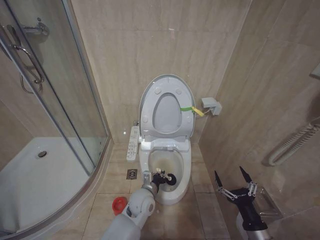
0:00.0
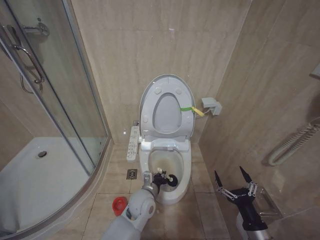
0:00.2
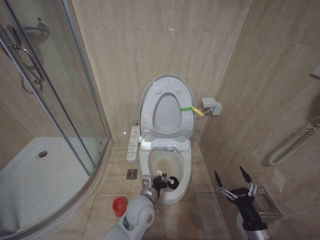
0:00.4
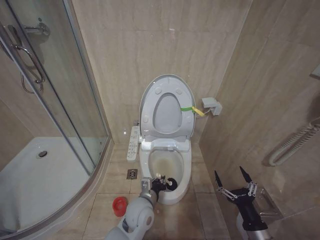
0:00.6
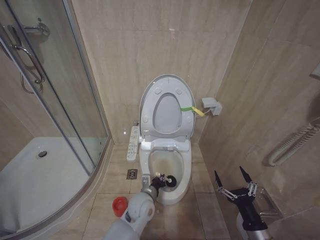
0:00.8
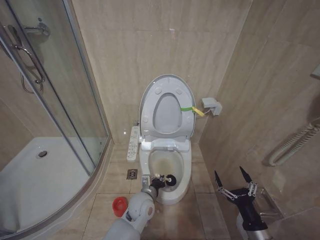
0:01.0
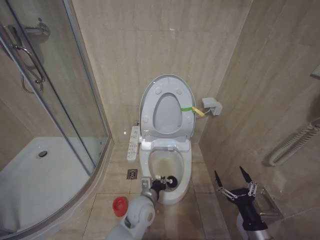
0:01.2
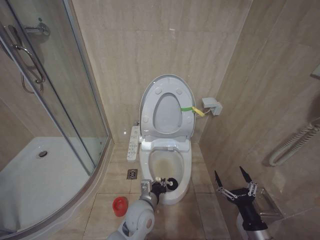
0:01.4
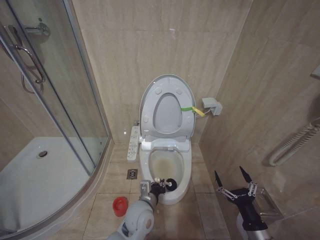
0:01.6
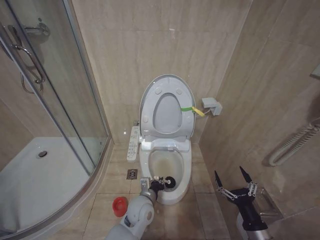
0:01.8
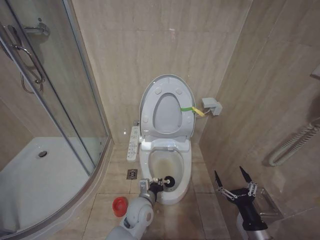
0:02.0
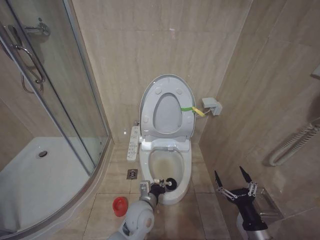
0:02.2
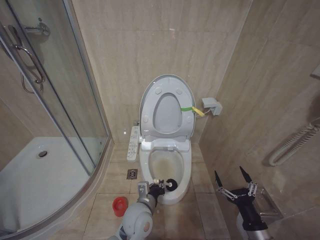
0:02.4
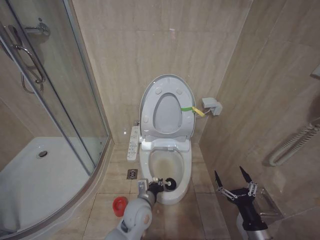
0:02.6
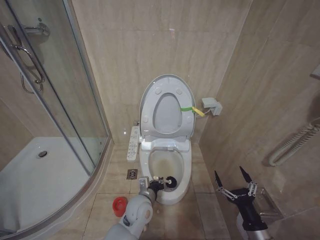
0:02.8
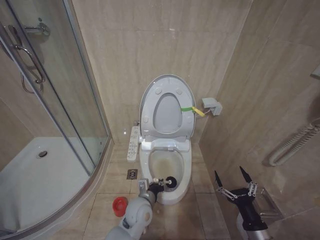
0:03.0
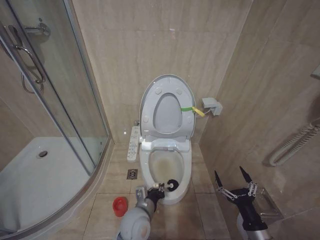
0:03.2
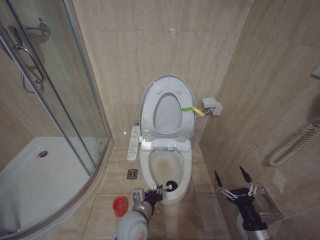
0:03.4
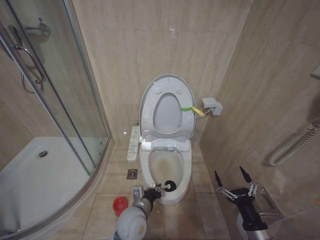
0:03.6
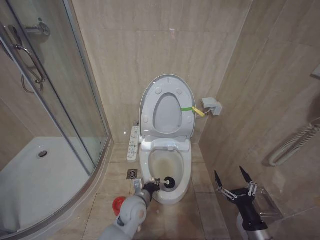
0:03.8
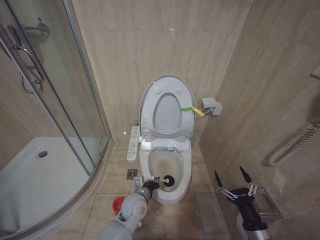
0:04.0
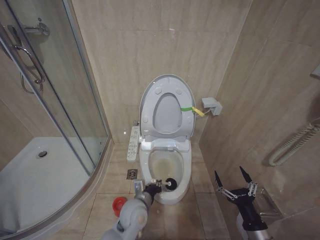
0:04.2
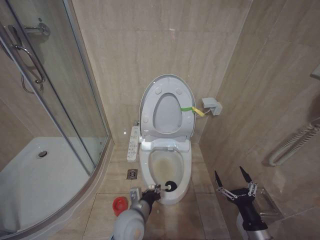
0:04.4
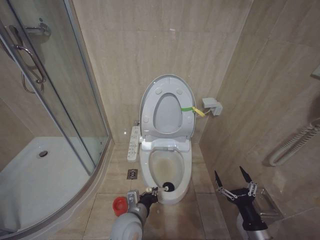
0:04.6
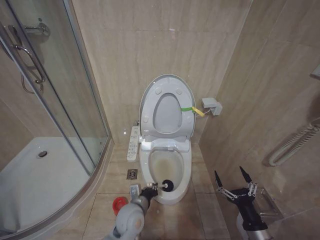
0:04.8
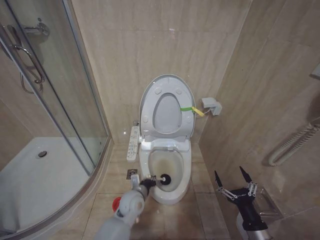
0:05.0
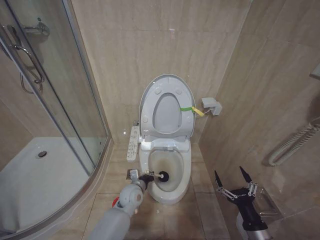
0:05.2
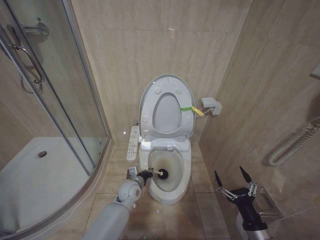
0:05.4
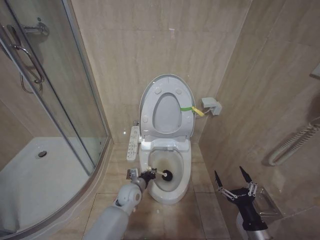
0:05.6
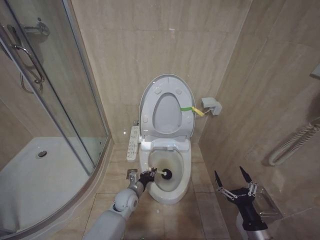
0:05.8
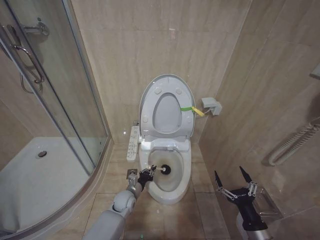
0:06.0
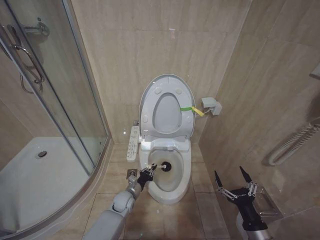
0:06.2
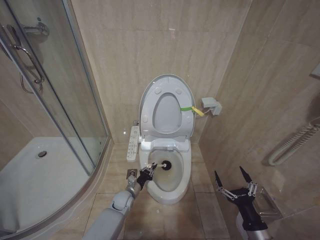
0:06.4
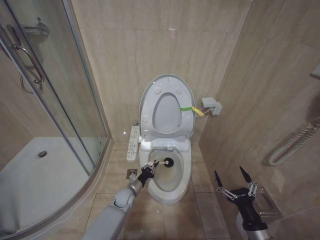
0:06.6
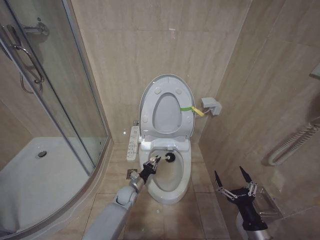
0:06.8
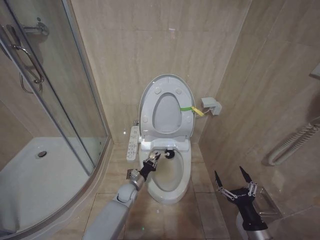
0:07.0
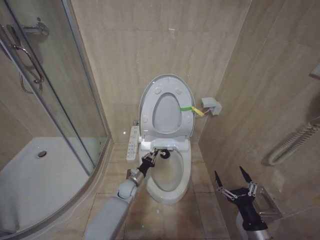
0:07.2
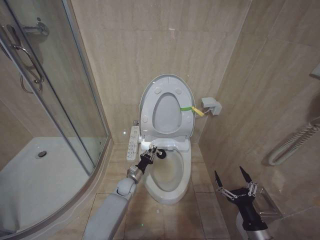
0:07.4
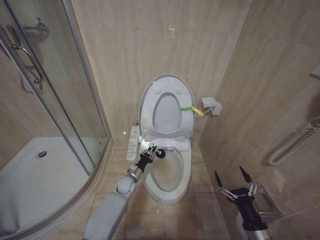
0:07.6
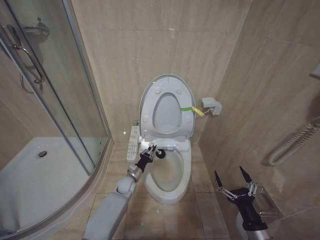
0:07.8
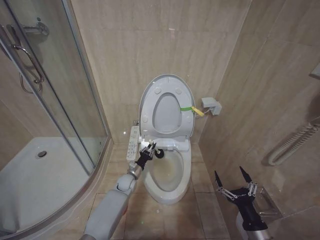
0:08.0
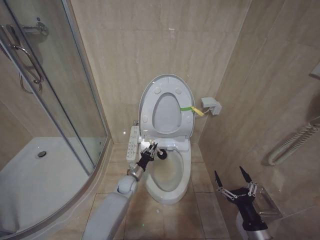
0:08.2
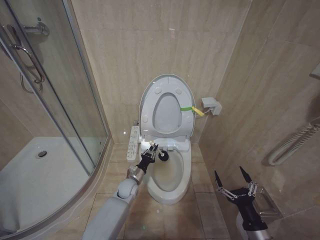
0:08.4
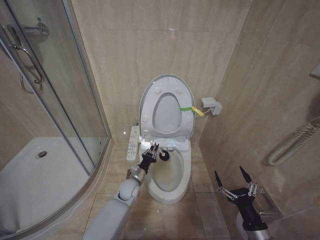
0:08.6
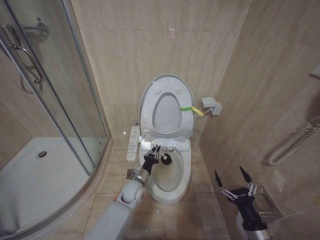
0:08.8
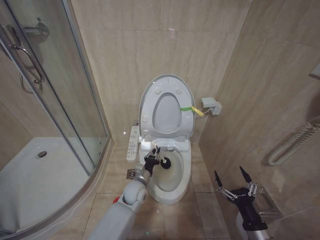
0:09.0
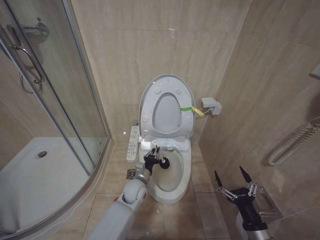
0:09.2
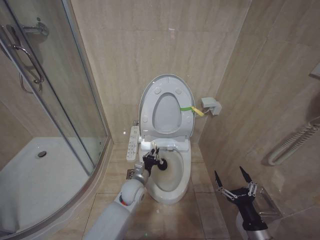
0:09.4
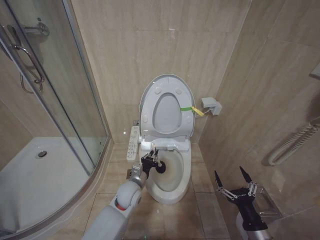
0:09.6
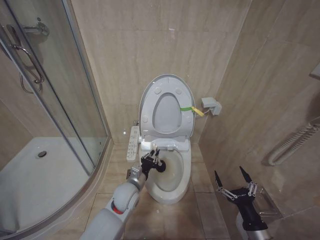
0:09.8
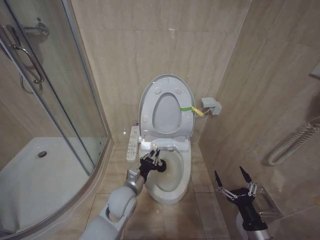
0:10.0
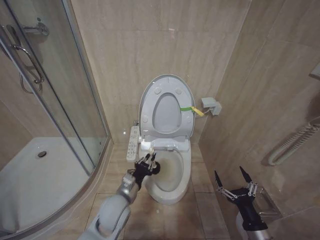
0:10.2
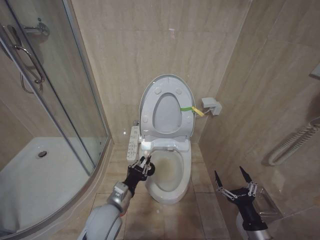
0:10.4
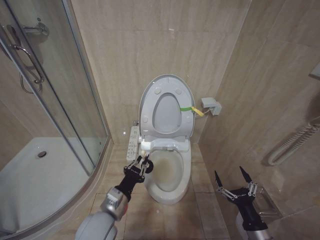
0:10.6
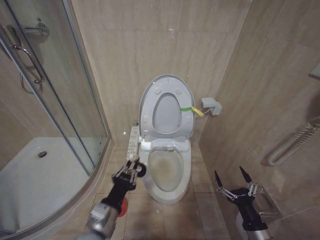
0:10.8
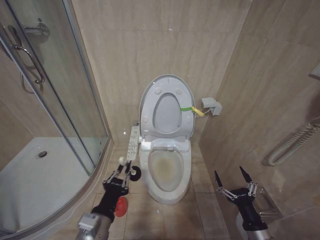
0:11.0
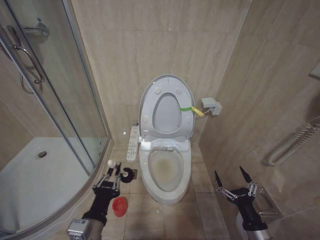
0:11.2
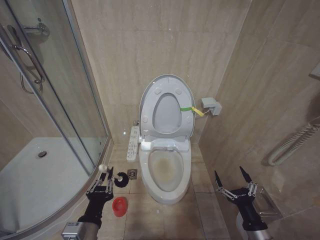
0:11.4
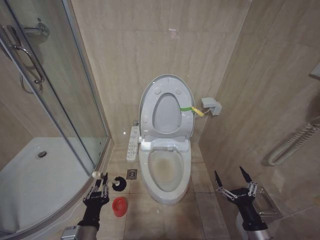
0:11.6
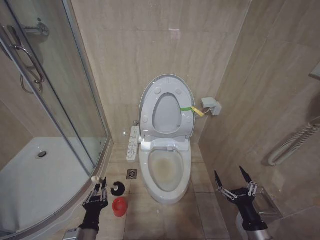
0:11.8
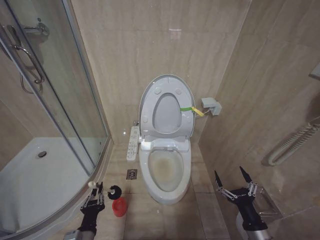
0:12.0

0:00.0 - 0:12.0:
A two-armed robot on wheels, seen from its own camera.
Task of the whole recording: Open the toilet lid, clean the toilet bowl with a toilet brush, close the toilet lid, and flush.
0:00.0 - 0:01.6: The left gripper moves forward and backward over about 5 cm, changing direction 2 times.
0:03.0 - 0:04.4: The left gripper swings forward and backward, some 10 cm each way, with 2 reversals.
0:04.4 - 0:06.0: The left gripper goes approximately 15 cm downward, forward and to the left.
0:06.0 - 0:07.6: The left gripper shifts roughly 5 cm forward.
0:07.6 - 0:09.0: The left gripper travels upward, backward and to the right by about 10 cm.
0:09.0 - 0:10.4: The left gripper moves backward, upward and to the left, approximately 20 cm.
0:10.4 - 0:12.0: The left gripper travels backward, downward and to the left by about 15 cm.

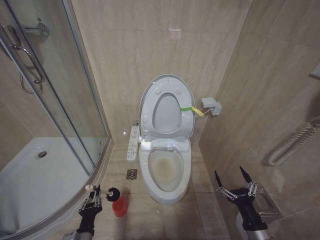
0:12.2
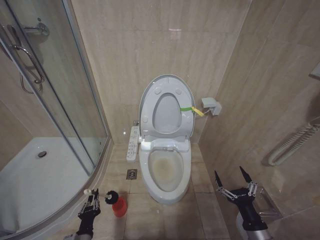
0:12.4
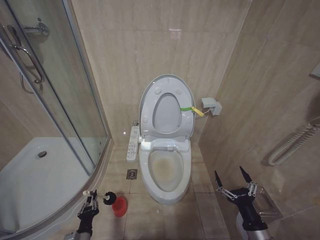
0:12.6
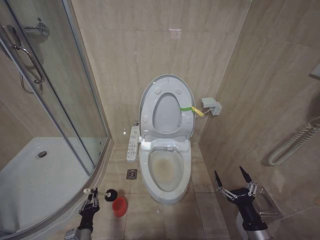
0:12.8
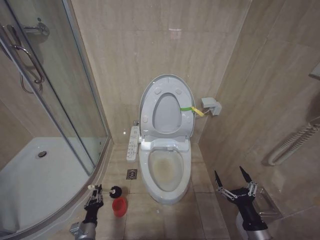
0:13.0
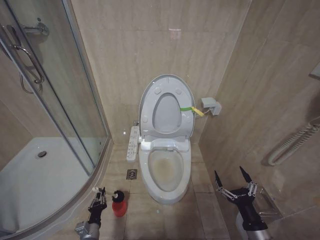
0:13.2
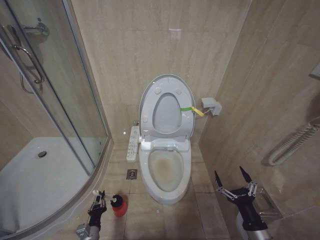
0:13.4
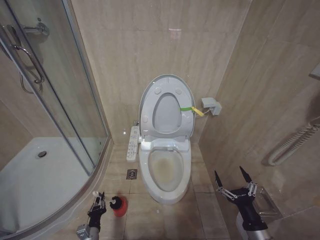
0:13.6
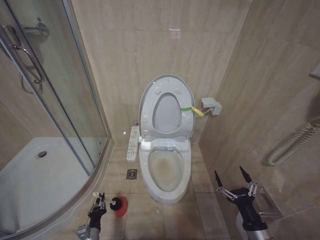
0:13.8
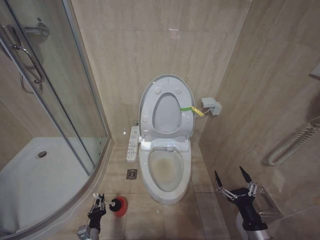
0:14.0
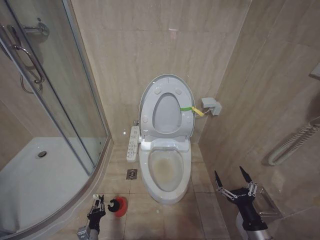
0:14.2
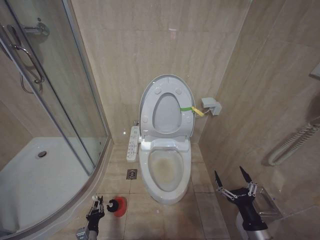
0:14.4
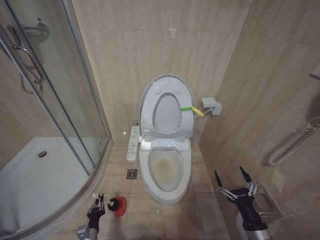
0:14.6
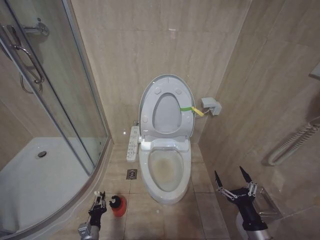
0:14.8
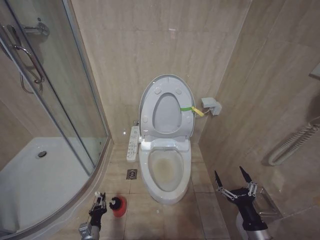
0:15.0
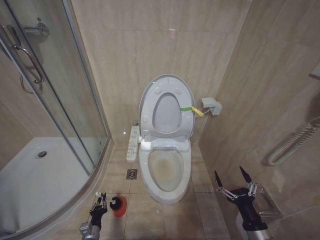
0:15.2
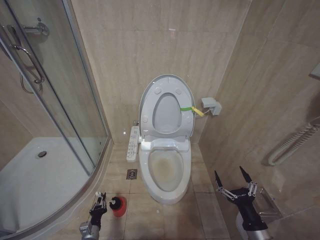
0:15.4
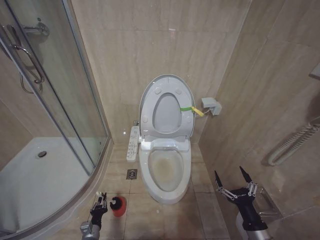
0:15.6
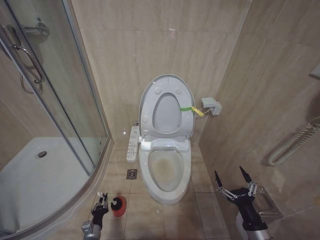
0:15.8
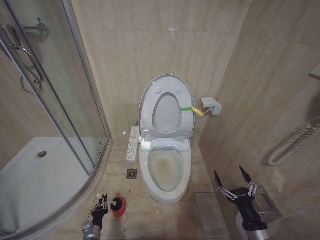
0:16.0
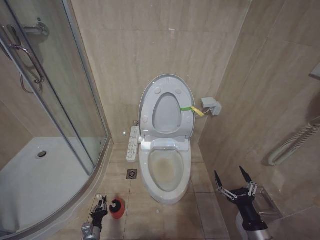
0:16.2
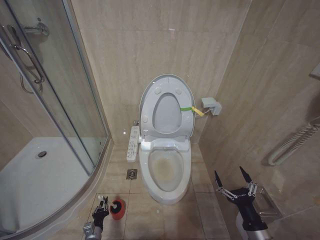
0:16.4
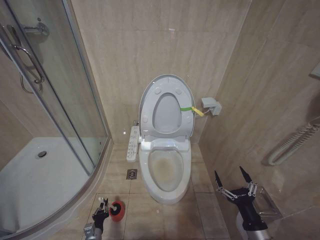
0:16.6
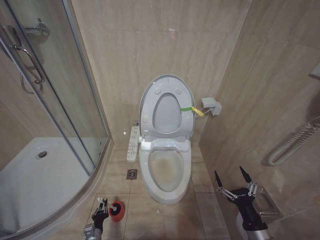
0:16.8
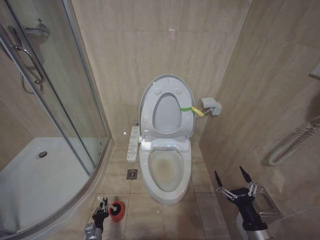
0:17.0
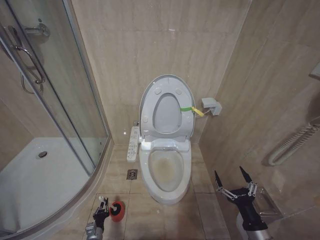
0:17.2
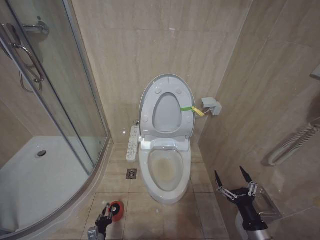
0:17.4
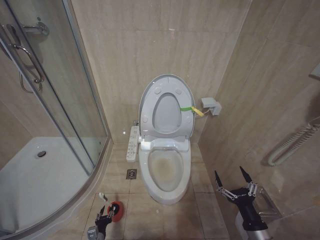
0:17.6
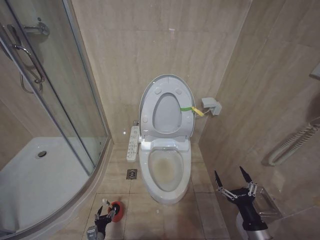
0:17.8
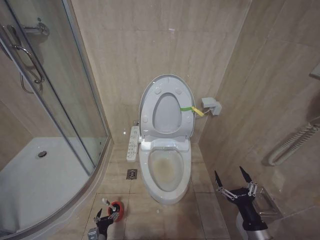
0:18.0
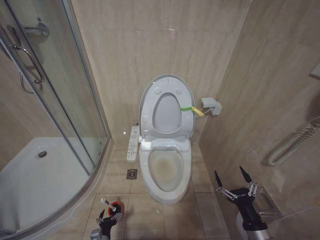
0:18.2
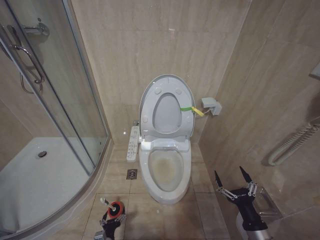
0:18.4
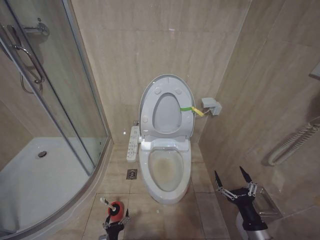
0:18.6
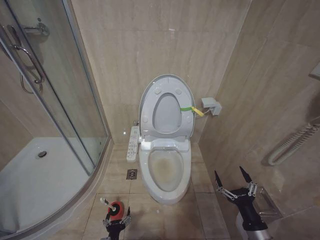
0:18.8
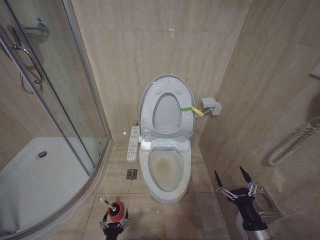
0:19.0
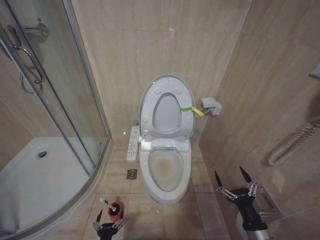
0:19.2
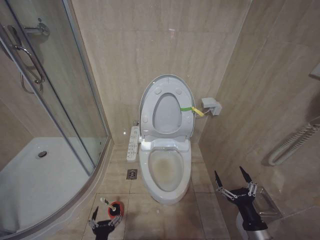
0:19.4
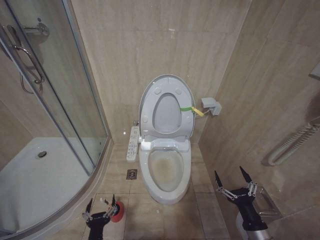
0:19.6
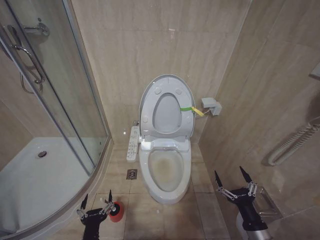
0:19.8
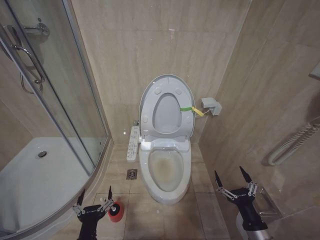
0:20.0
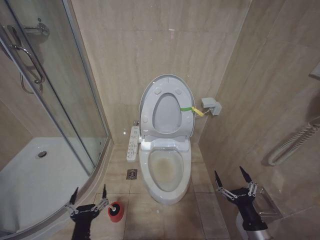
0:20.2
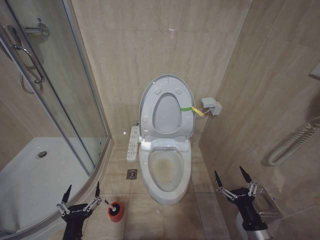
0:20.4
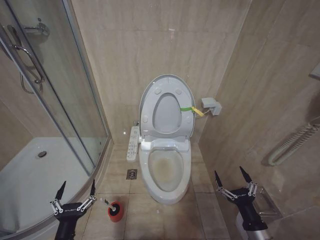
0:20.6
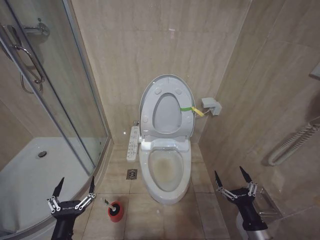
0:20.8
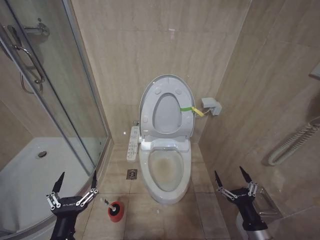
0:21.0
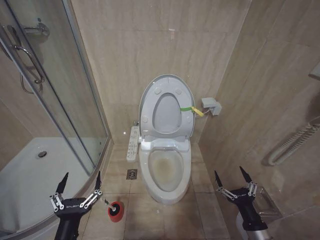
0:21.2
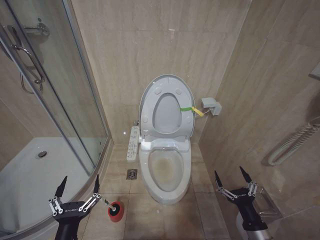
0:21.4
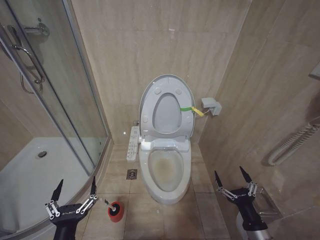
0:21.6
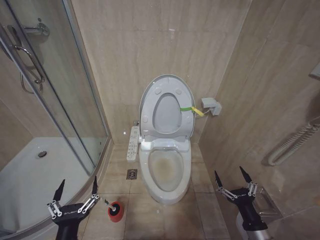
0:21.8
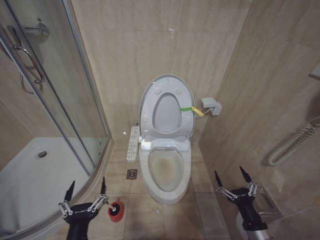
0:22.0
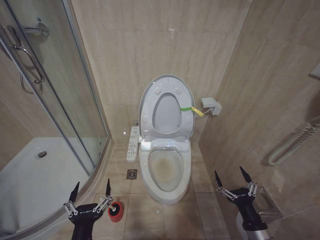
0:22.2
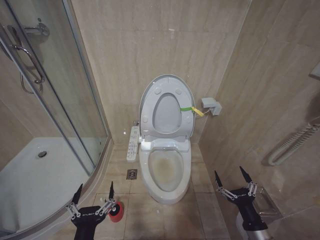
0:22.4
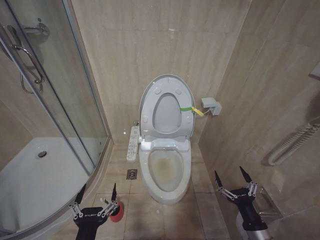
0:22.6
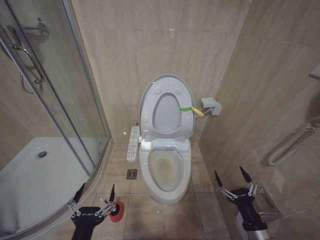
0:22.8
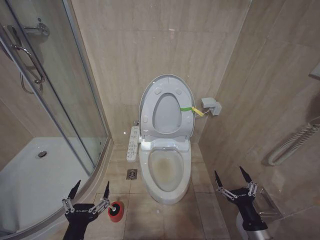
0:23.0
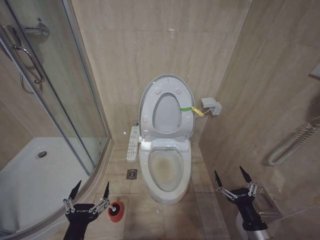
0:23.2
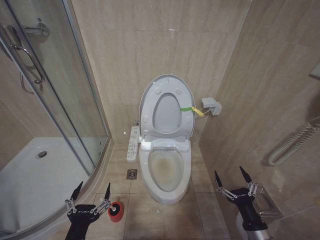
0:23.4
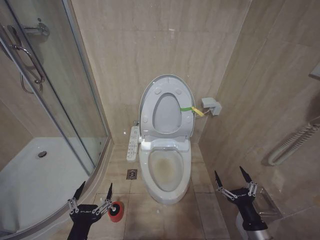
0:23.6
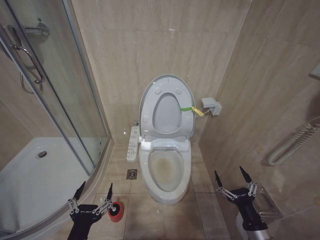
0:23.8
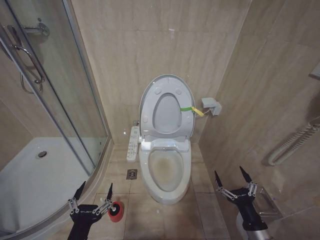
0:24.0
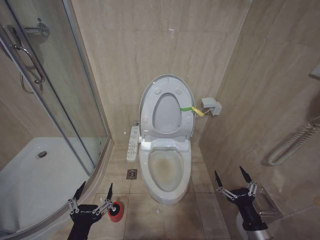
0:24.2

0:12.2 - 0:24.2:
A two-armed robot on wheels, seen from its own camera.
Task of the whole recording: Open the toilet lid, clean the toilet bowl with a toilet brush, close the toilet lid, and flush.
0:12.2 - 0:13.8: The left gripper is displaced downward by roughly 15 cm.
0:16.6 - 0:18.2: The left gripper opens up.
0:18.2 - 0:19.8: The left gripper goes about 20 cm upward.
0:19.8 - 0:21.2: The left gripper moves upward, some 15 cm.
0:21.2 - 0:24.2: The grippers stay close to where they were, moving slightly.
